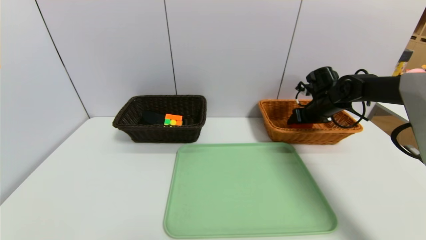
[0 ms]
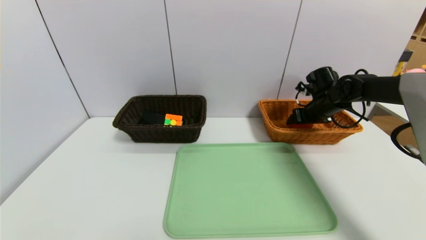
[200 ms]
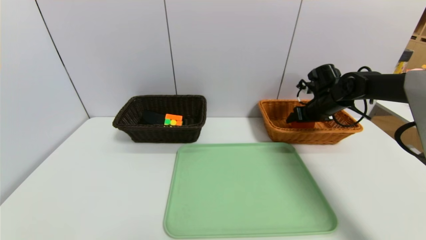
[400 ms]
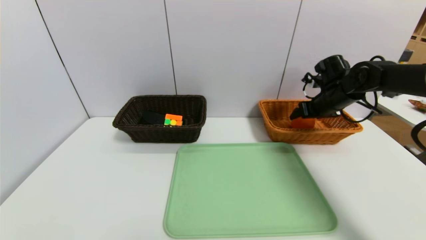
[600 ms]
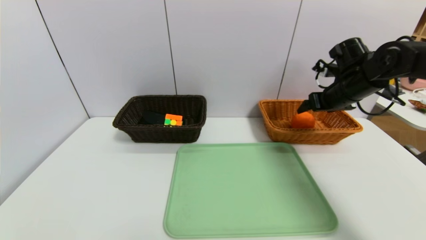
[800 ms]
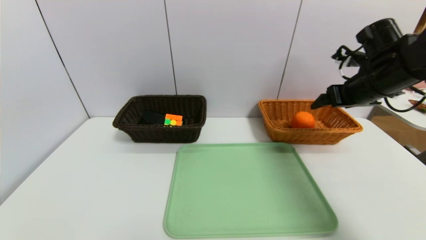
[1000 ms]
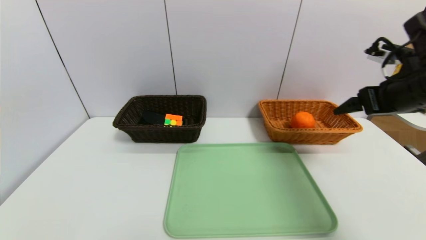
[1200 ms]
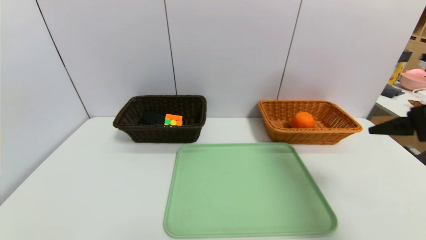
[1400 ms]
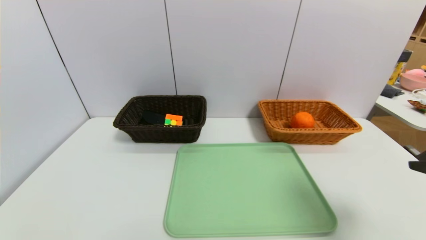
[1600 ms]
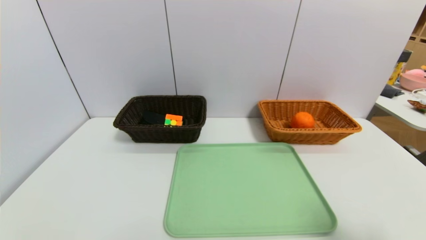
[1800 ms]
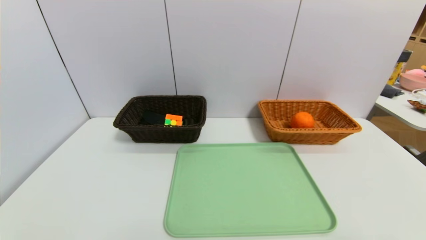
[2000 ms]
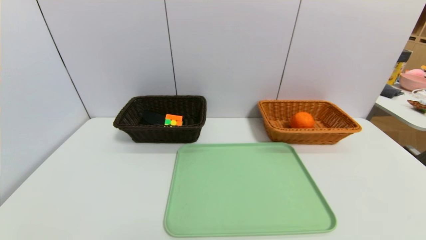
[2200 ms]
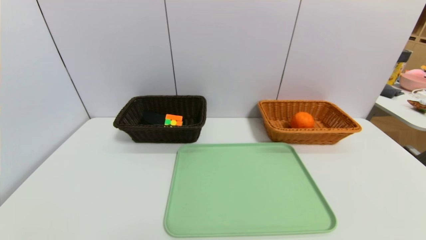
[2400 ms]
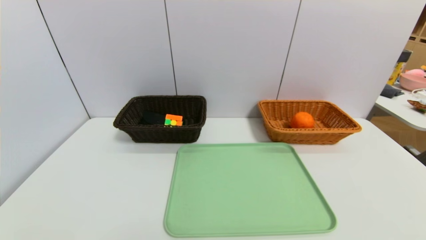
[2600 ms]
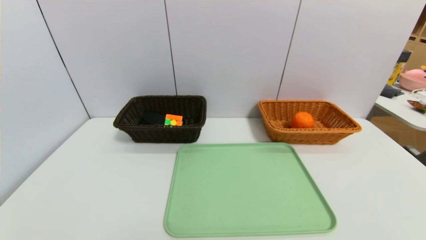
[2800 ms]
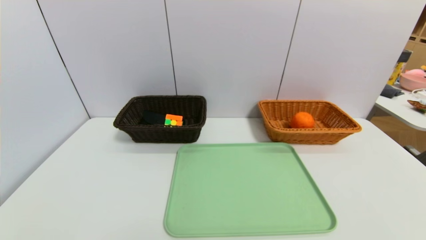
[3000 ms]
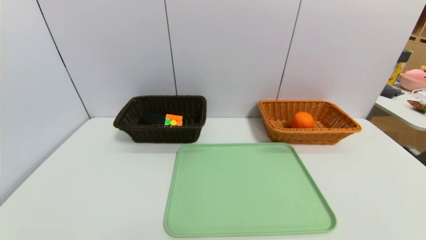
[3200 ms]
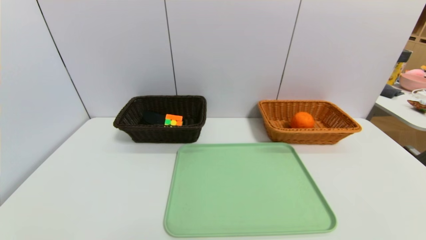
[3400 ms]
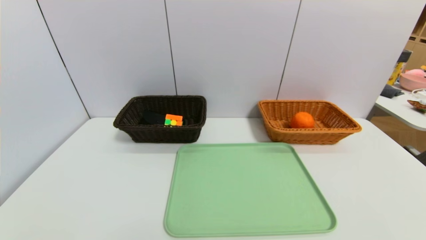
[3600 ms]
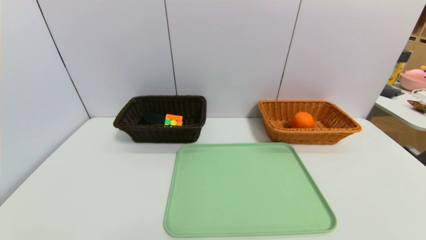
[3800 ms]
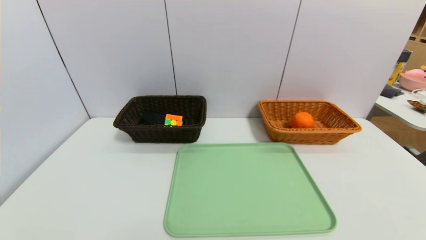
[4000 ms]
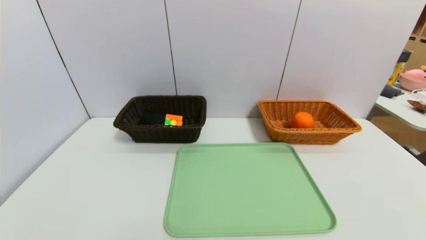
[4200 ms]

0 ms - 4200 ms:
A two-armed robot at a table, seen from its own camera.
Task of the whole recording: place the food in the right basket with the right gripper, and place the non food items in the left basket with the left gripper.
0 ms - 1400 ms: The right gripper is displaced backward and upward by roughly 30 cm, and opens its fingers.
1400 ms - 2800 ms: The right gripper shifts some 30 cm downward and backward.
2800 ms - 4200 ms: The two grippers keep their place.
